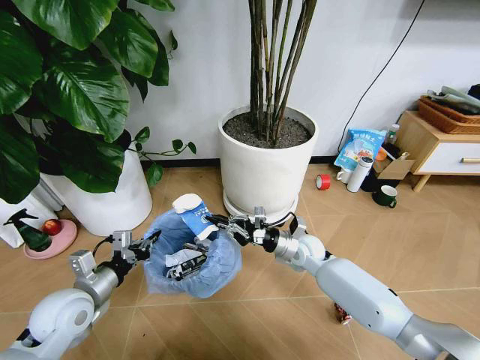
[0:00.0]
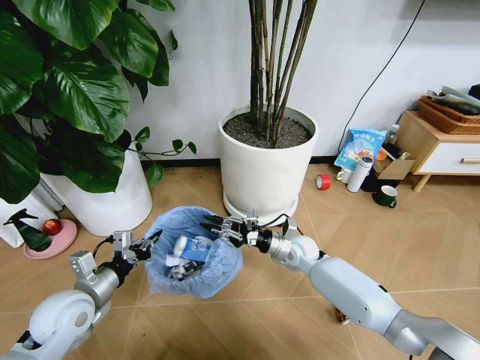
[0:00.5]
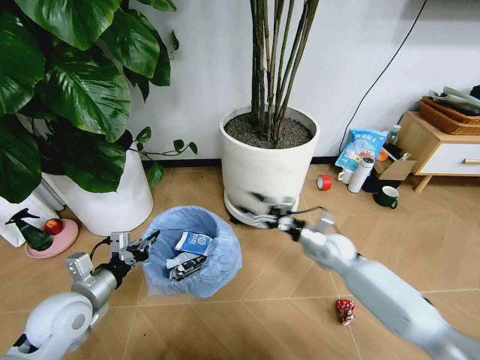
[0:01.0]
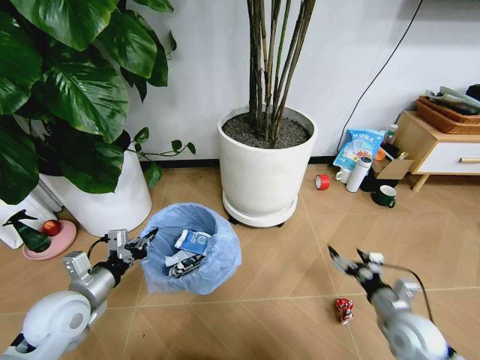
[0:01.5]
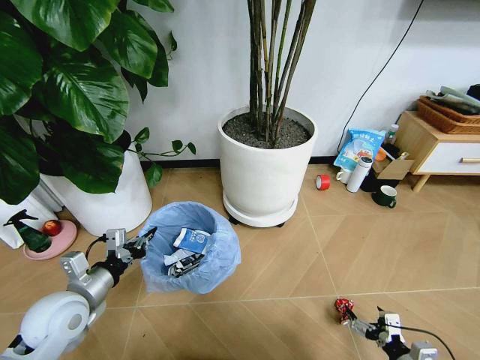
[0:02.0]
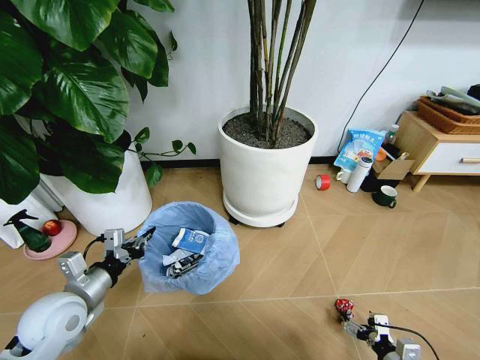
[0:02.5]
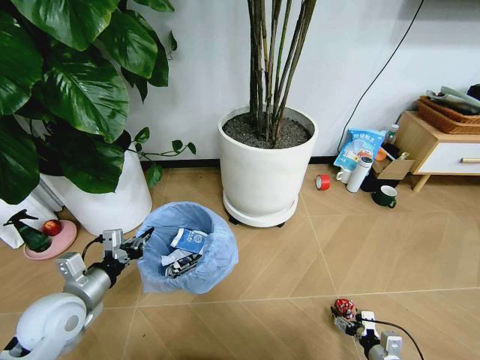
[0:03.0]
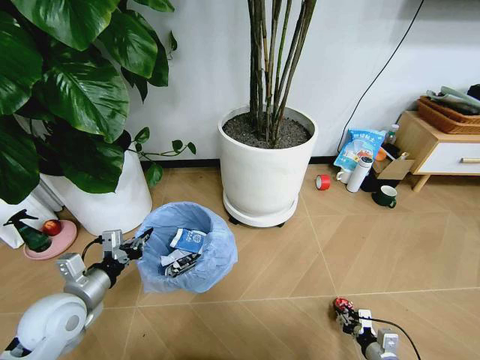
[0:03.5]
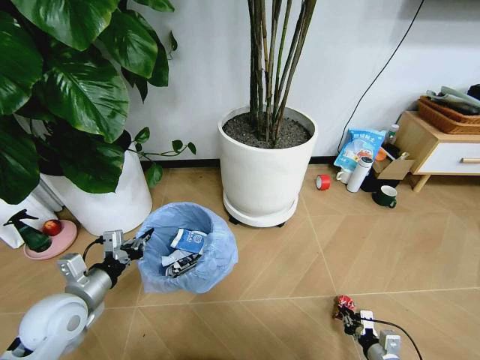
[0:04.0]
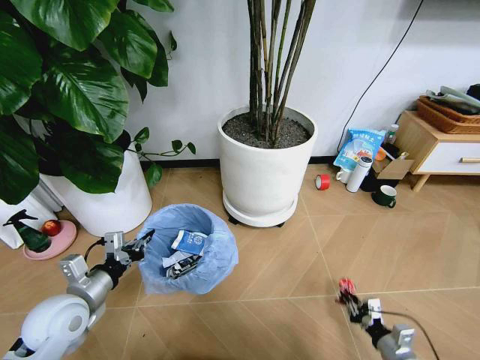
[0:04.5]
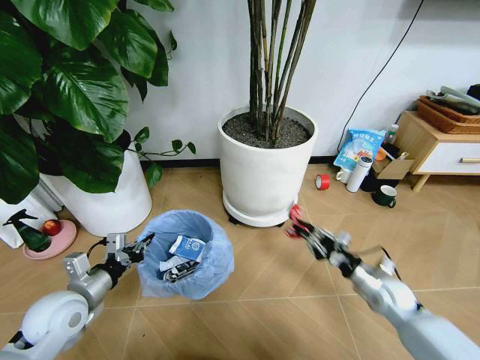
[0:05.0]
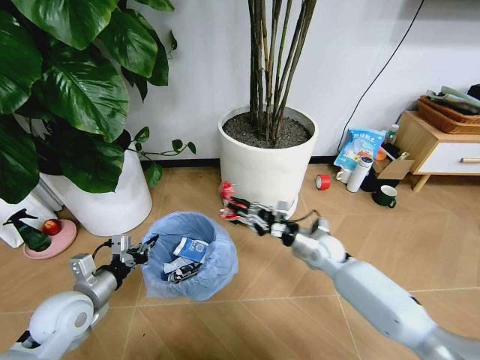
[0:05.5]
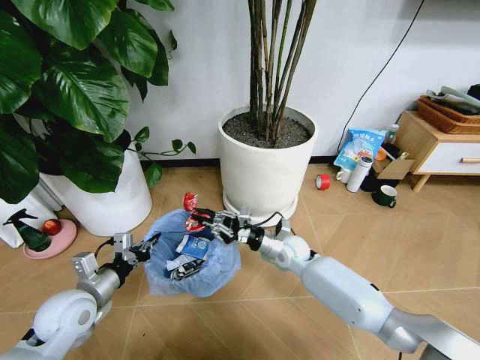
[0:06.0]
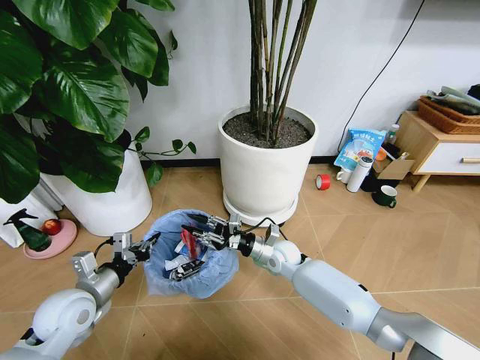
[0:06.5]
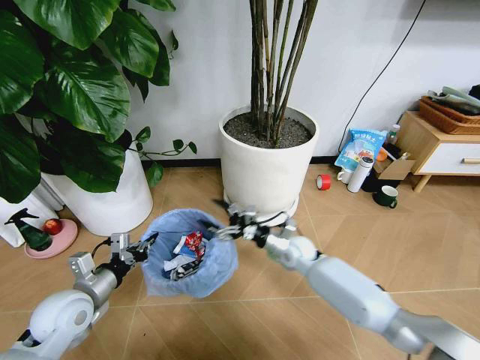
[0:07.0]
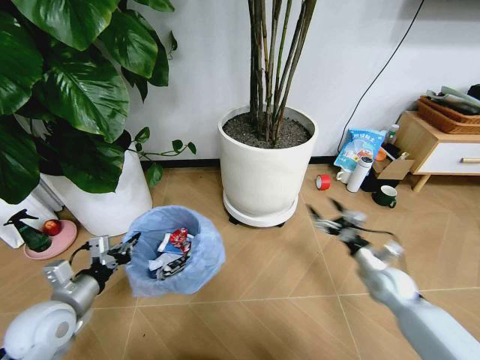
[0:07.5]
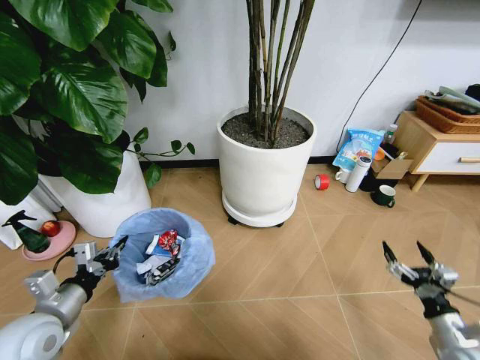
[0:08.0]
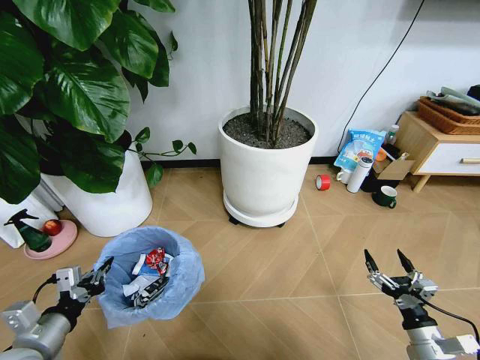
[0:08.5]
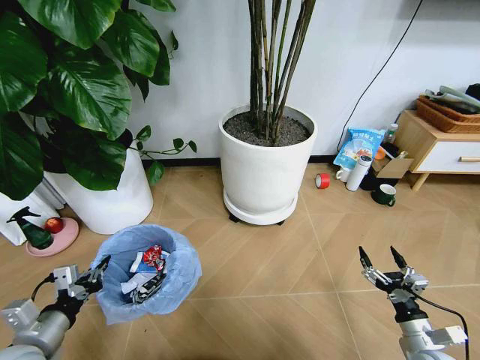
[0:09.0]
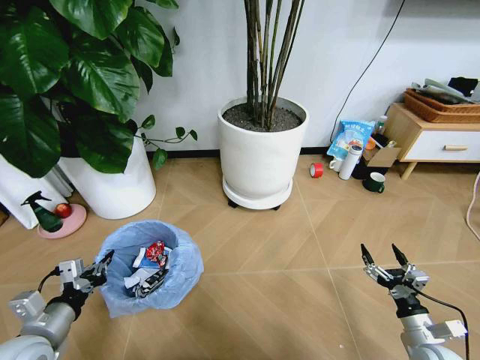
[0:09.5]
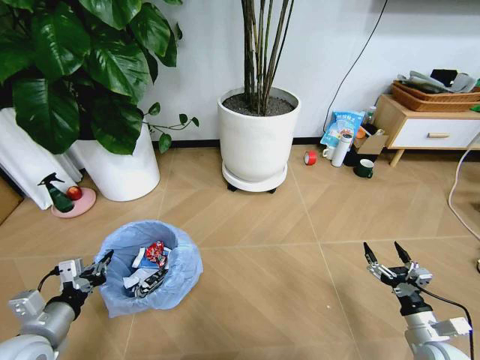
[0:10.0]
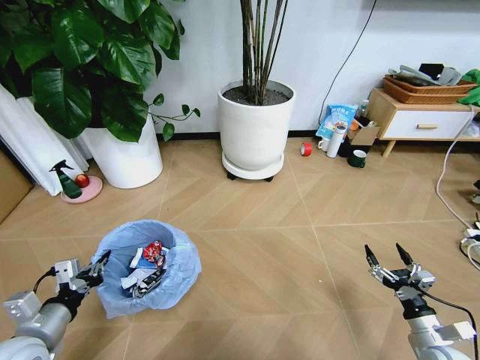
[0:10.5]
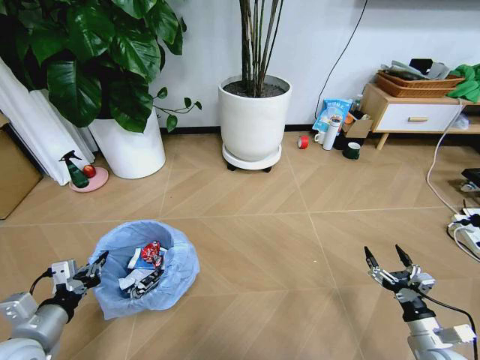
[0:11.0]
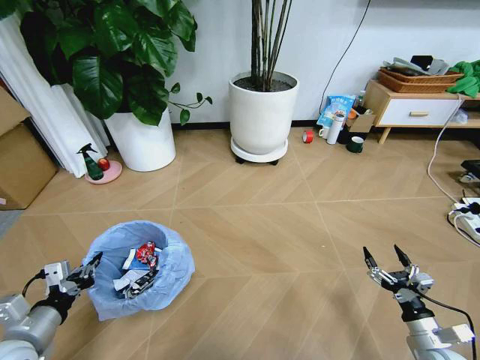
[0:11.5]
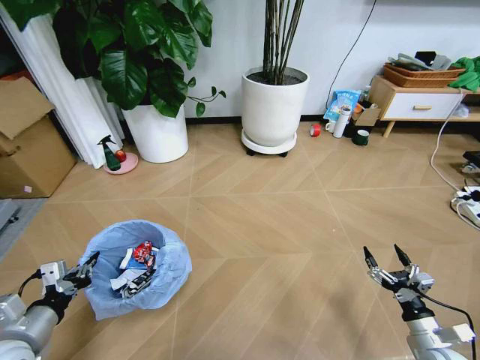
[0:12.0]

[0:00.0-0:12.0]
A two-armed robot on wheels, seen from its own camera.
Task of the whole recording: Pick up the trash bin and place the garbage on the floor into it.
0:00.0 to 0:02.0: The right gripper goes roughly 40 cm backward and to the right, and opens.
0:02.0 to 0:04.0: The right gripper travels downward by about 10 cm, and closes up.
0:04.0 to 0:06.0: The right gripper goes about 40 cm forward, to the left and upward.
0:06.0 to 0:08.0: The right gripper heads to the right and backward, covering roughly 40 cm, and opens its fingers. Meanwhile the left gripper shifts by some 5 cm.

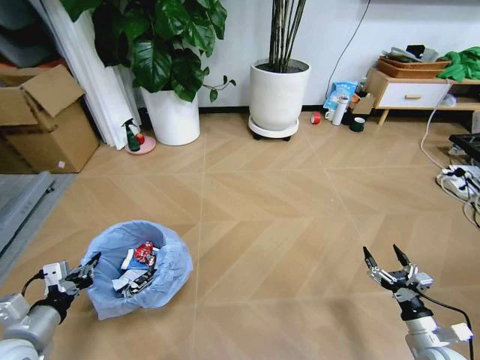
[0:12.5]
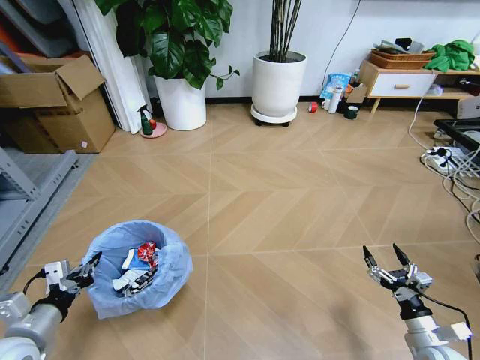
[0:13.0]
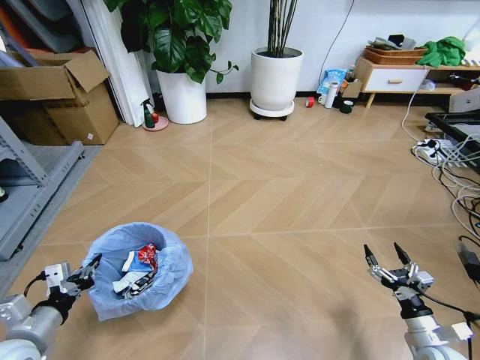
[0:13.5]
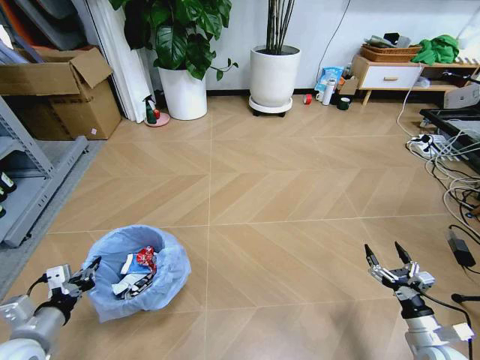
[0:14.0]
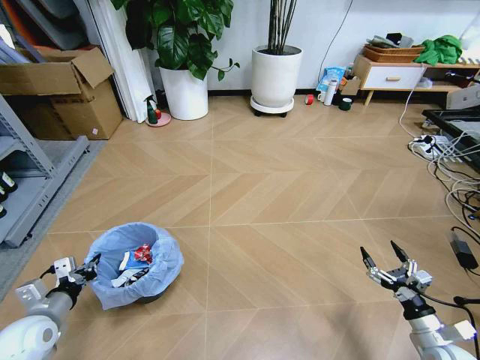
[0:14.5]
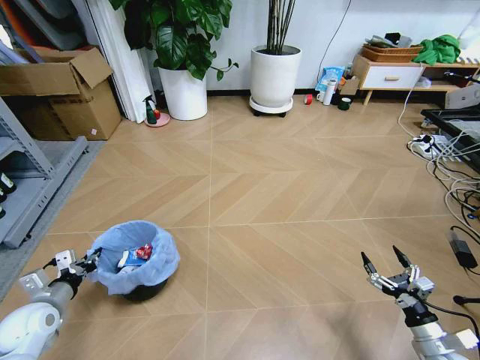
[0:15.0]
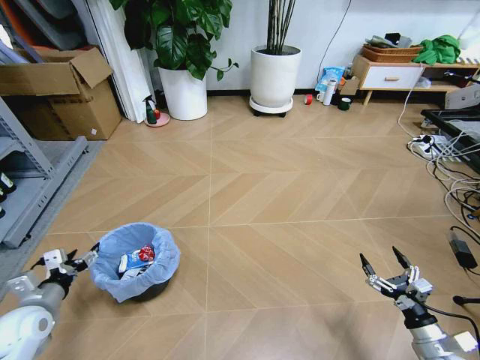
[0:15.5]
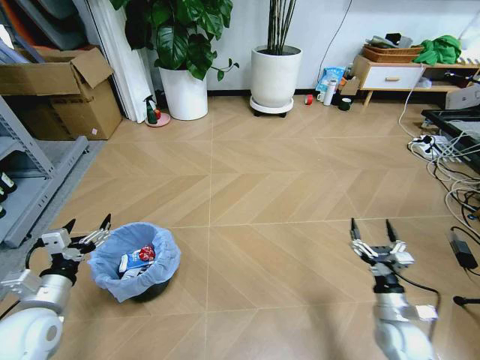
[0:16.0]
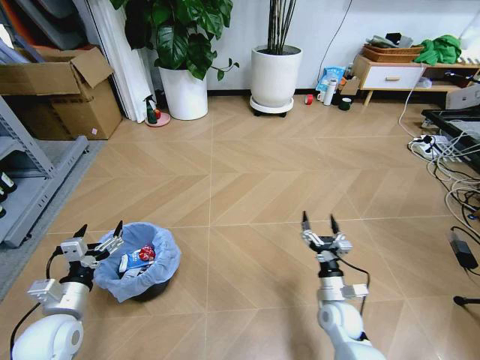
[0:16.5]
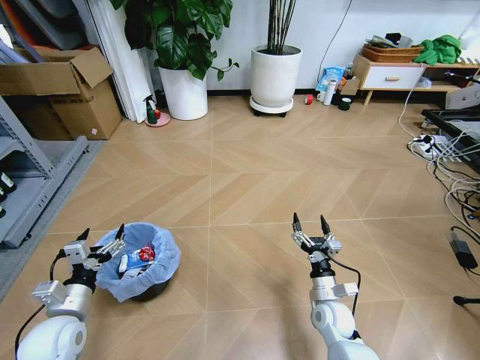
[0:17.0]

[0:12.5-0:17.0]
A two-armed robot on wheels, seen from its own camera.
Task of the whole recording: Pick up the trash bin and place the garbage on the floor into it.
0:12.5 to 0:14.5: The left gripper is displaced forward and downward by roughly 10 cm.
0:14.5 to 0:17.0: The left gripper heads to the right, covering roughly 5 cm, and opens up; the right gripper heads to the left and forward, covering about 25 cm.

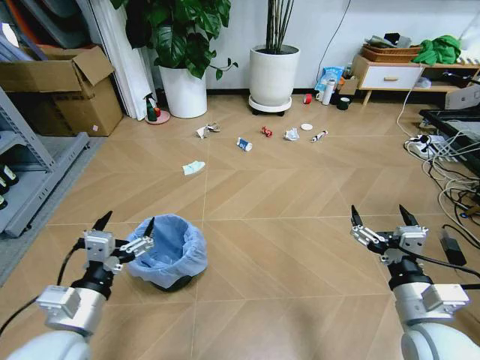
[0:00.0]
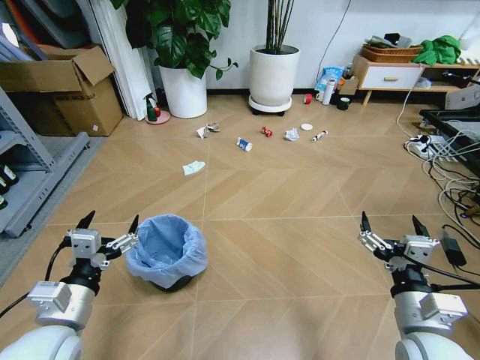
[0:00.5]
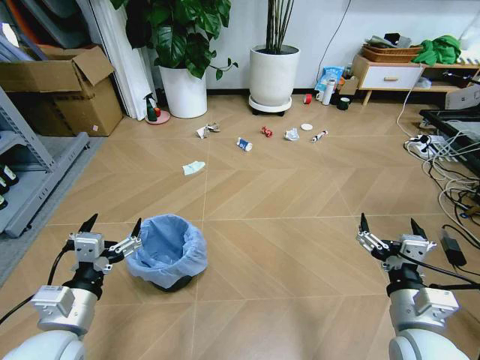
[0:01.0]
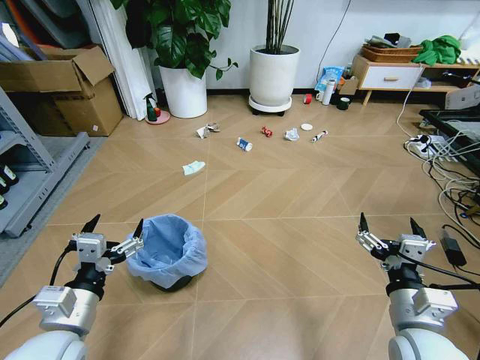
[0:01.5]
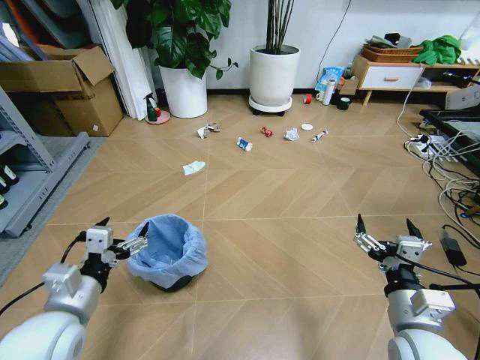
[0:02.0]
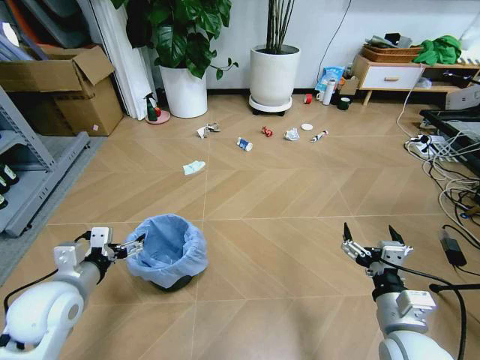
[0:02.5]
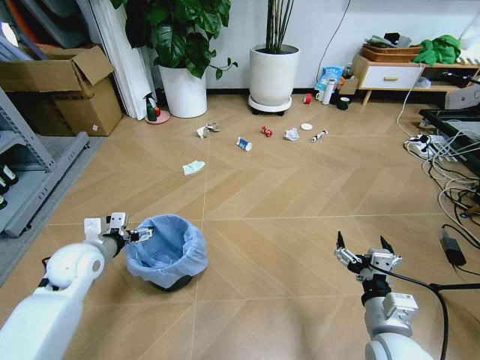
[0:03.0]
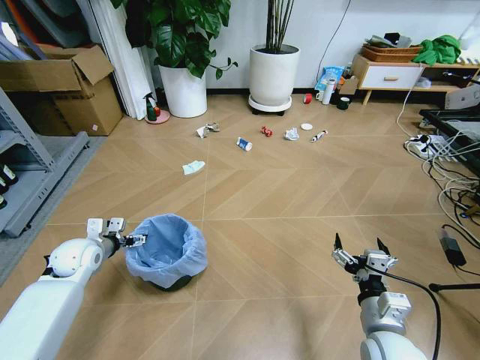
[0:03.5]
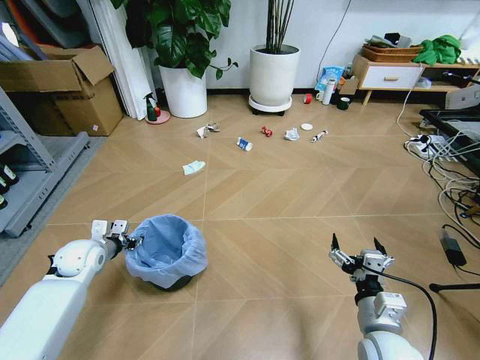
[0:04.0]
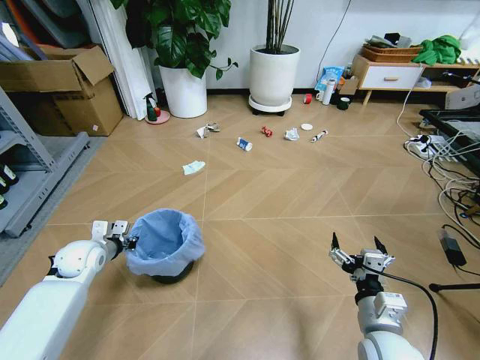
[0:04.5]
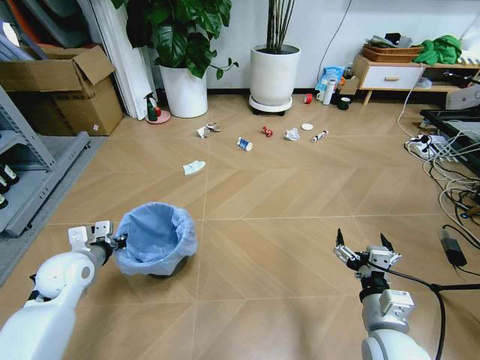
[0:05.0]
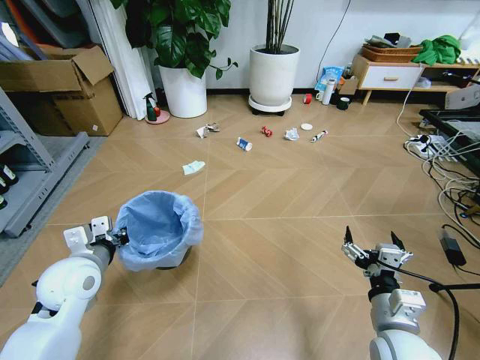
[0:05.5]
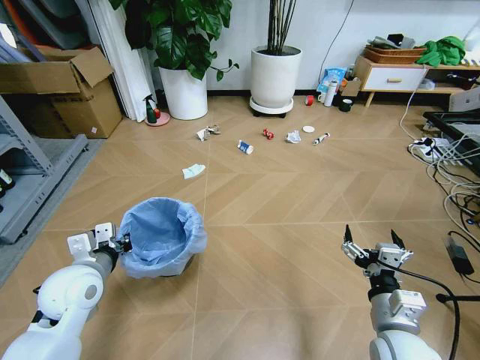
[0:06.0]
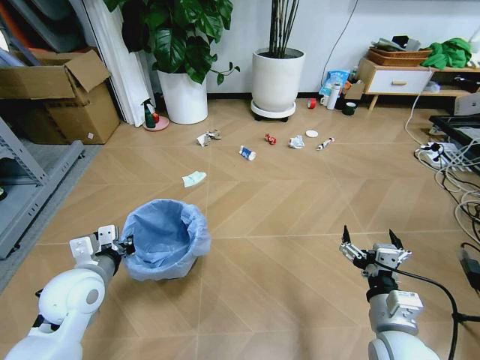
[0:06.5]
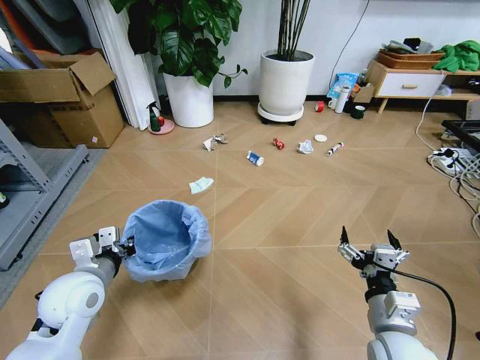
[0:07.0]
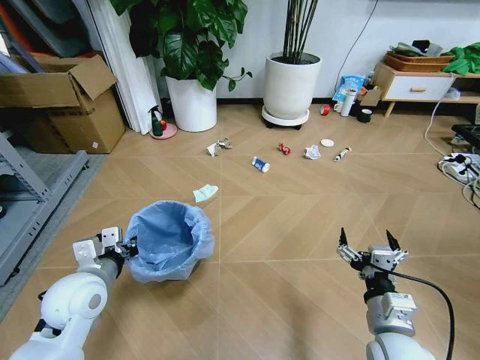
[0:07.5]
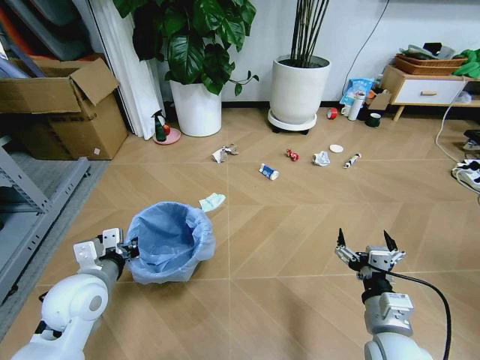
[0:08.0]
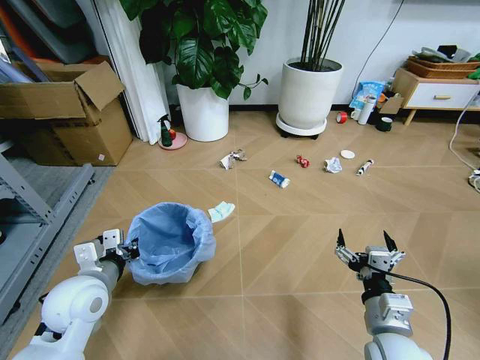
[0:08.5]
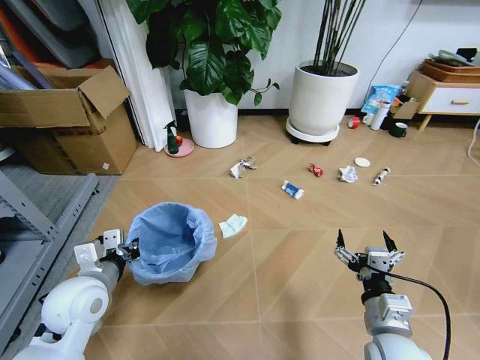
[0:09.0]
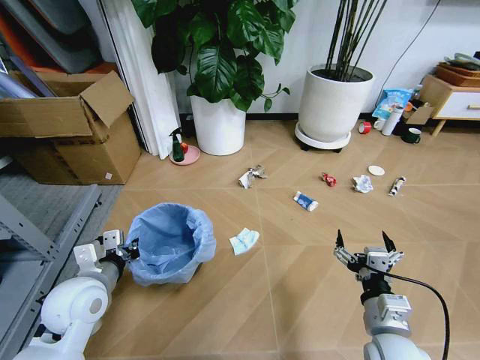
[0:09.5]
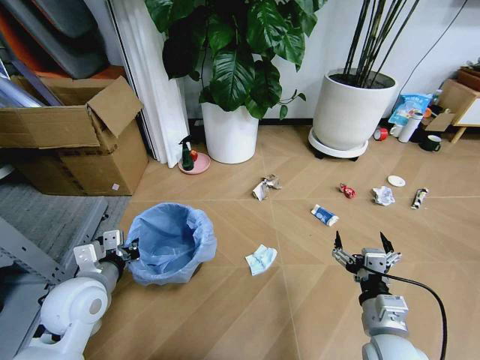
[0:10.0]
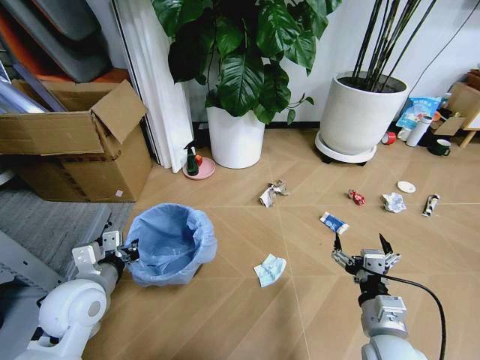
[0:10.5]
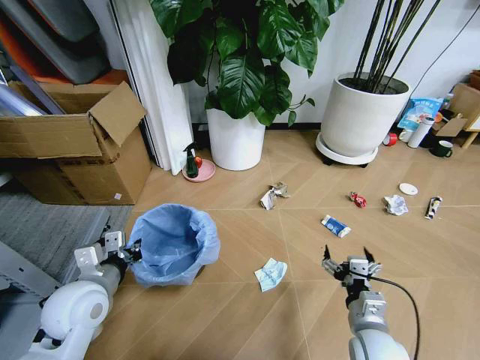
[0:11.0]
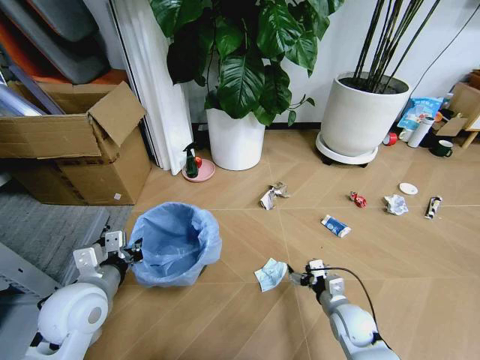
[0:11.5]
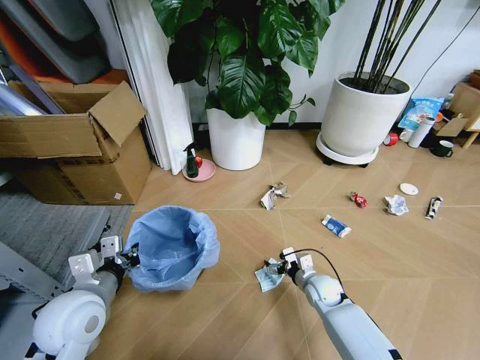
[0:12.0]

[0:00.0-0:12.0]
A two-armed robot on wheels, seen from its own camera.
Task of the whole recording: Pick up the trash bin and place the garbage on the floor into it.
0:02.0 to 0:04.0: The left gripper travels forward, downward and to the left by about 25 cm, and closes its fingers. The right gripper travels downward by about 5 cm.
0:04.0 to 0:06.0: The left gripper travels backward, upward and to the right by some 15 cm, and closes up.
0:10.0 to 0:12.0: The right gripper travels forward and downward by about 25 cm.
